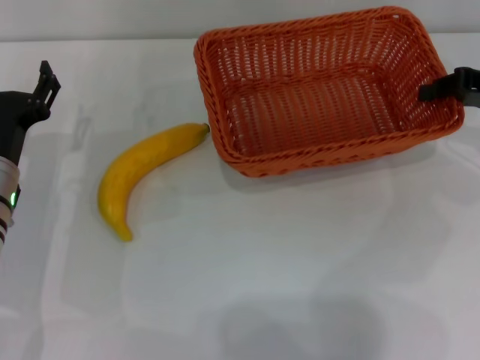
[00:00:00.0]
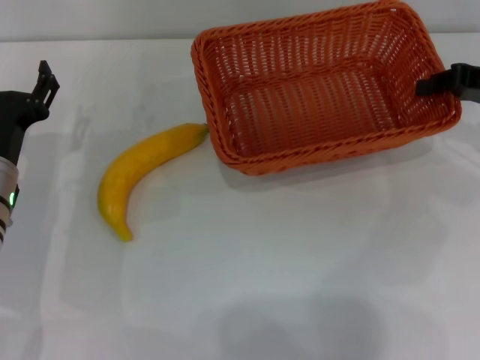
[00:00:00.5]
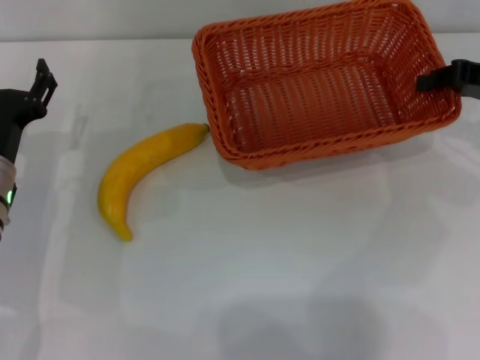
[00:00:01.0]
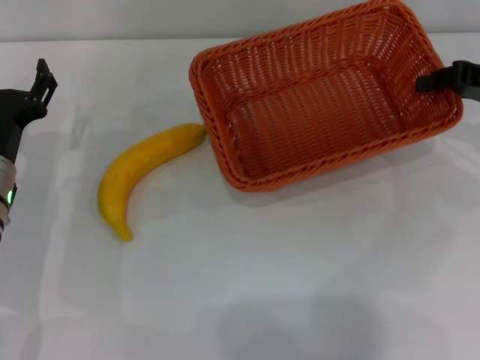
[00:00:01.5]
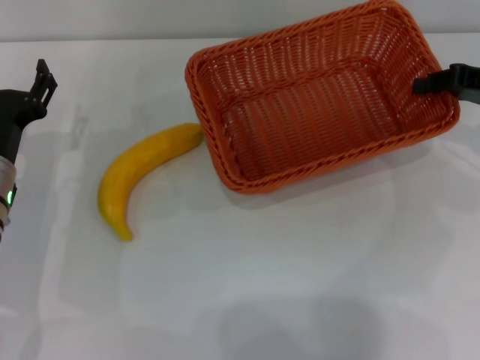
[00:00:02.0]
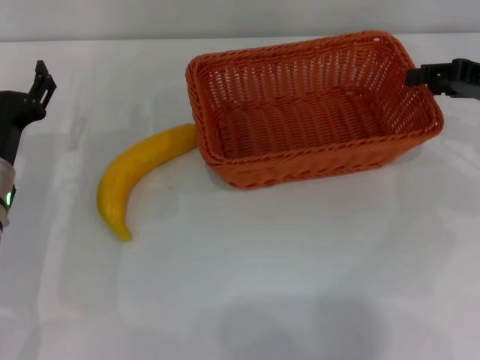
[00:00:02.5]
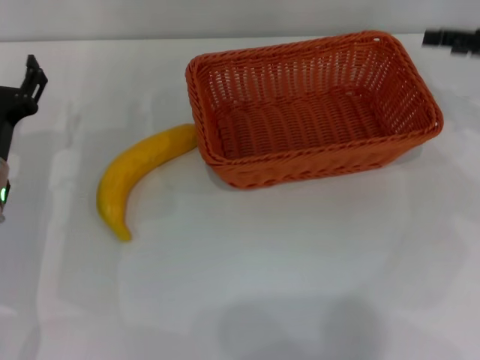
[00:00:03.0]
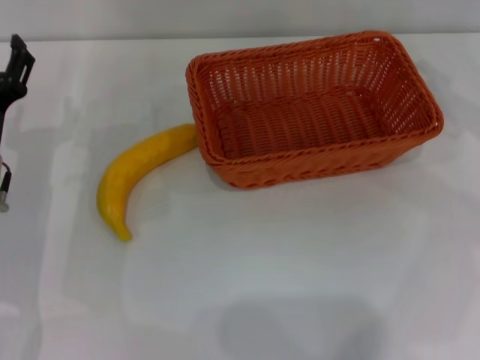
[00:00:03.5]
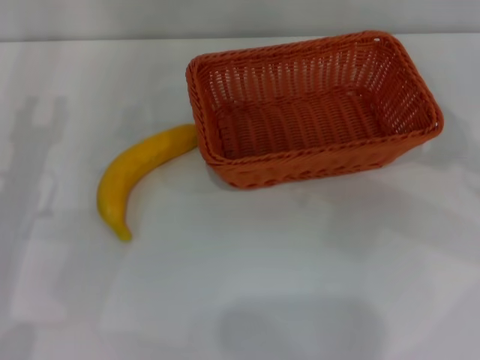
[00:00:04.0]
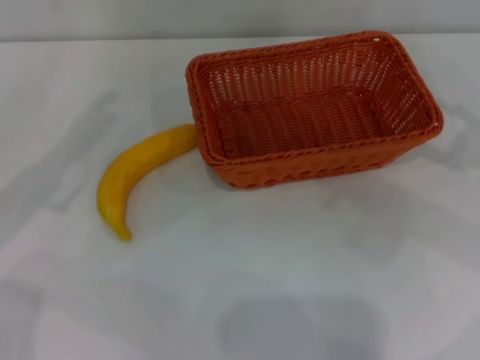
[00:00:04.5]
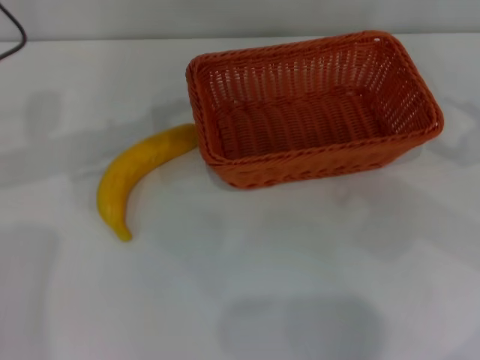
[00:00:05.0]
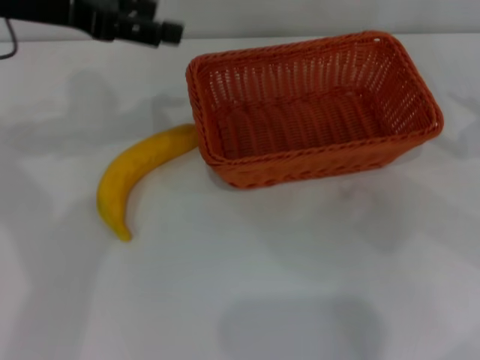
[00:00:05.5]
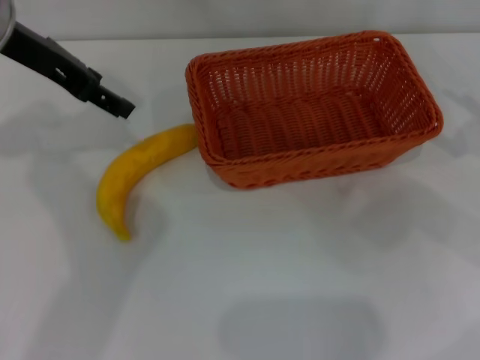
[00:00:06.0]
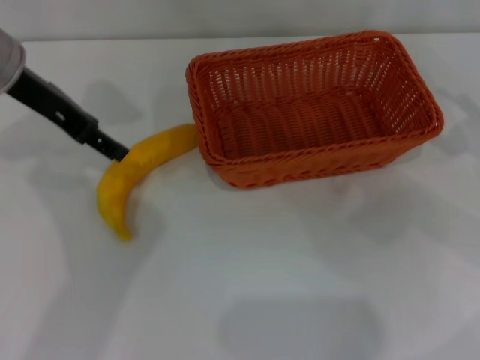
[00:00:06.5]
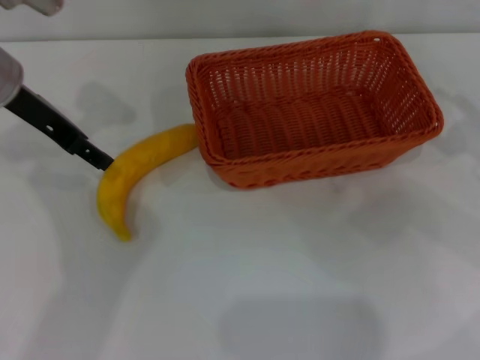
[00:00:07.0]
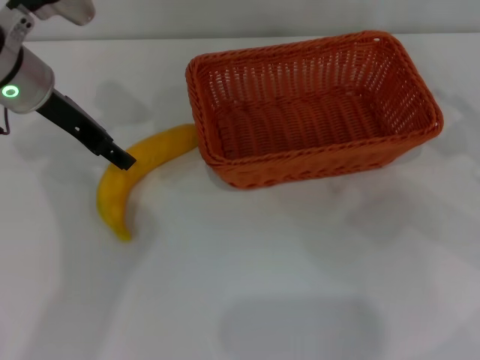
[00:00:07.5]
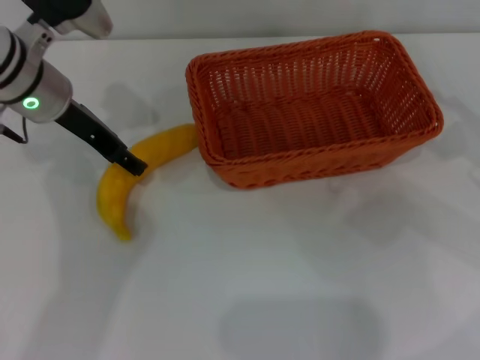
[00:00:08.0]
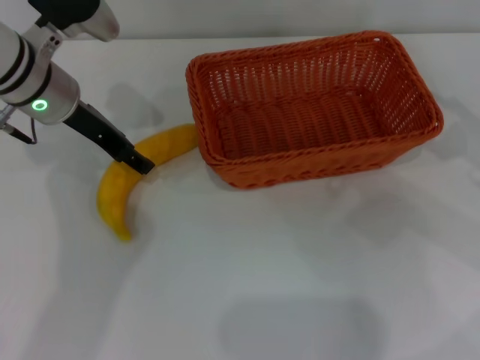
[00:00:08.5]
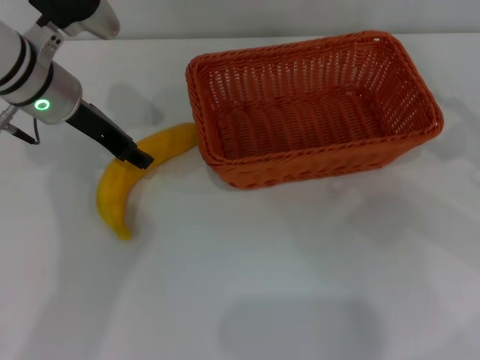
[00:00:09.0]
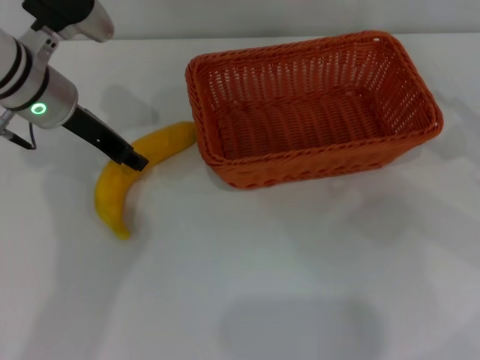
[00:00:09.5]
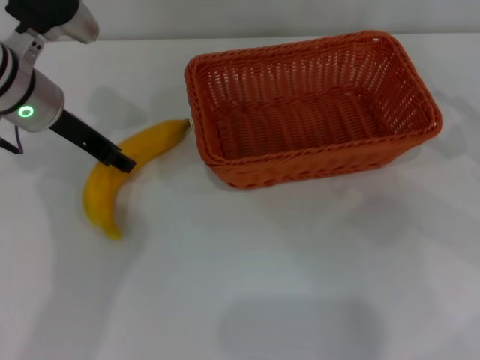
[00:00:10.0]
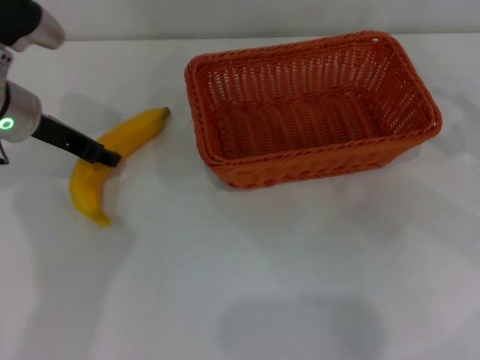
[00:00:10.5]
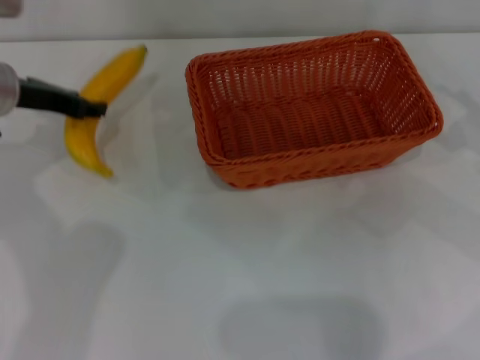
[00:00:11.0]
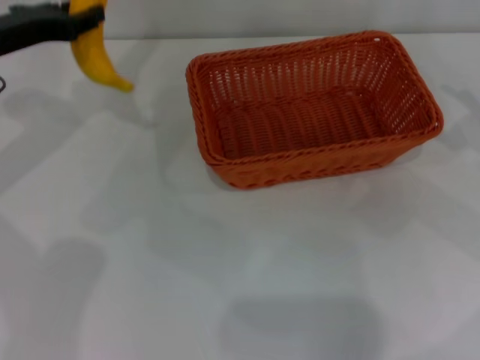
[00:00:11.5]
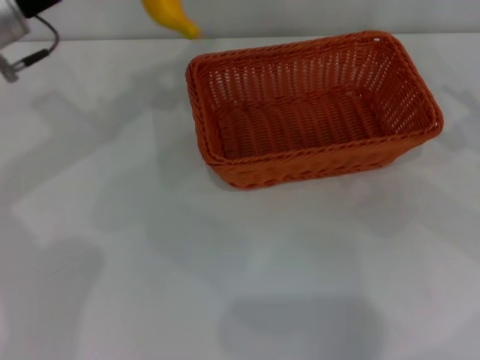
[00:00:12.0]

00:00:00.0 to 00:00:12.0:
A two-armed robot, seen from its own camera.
Step, 00:00:00.0 to 00:00:02.5: Place the light basket in the center of view with the right gripper.
Step, 00:00:03.0 to 00:00:11.0: Pick up the banana with the left gripper.
00:00:00.0 to 00:00:02.0: Both grippers stay about where they are.
00:00:02.0 to 00:00:04.0: The left gripper ends up about 5 cm from where it was; the right gripper goes some 10 cm backward and upward, and opens its fingers.
00:00:04.0 to 00:00:06.0: The left gripper heads upward and forward, covering roughly 20 cm.
00:00:06.0 to 00:00:08.0: The left gripper moves downward, approximately 10 cm.
00:00:08.0 to 00:00:10.0: The left gripper closes.
00:00:10.0 to 00:00:12.0: The left gripper moves approximately 5 cm.

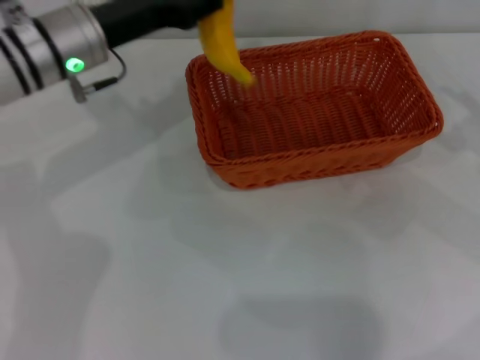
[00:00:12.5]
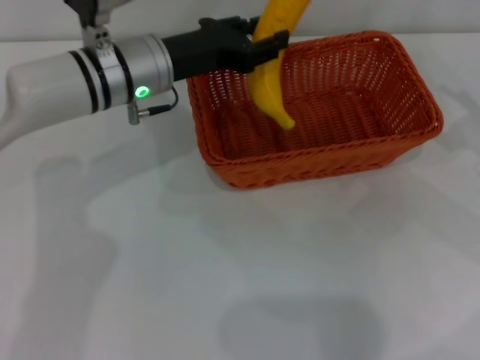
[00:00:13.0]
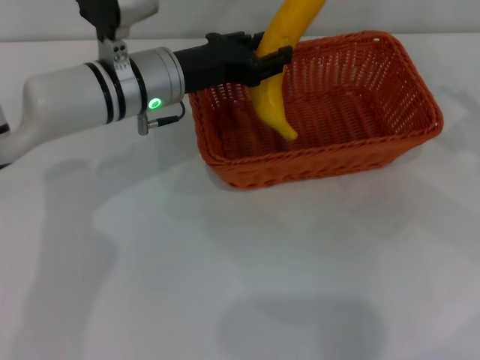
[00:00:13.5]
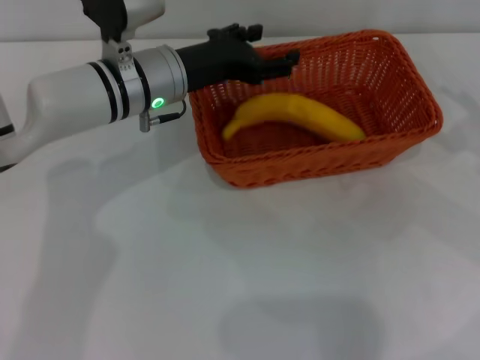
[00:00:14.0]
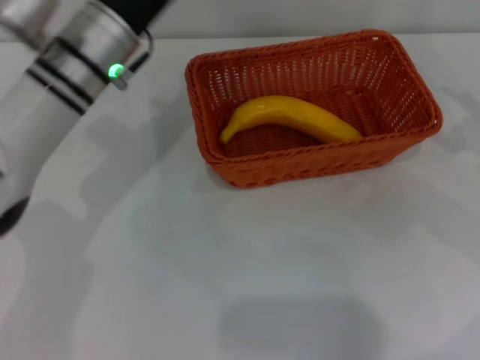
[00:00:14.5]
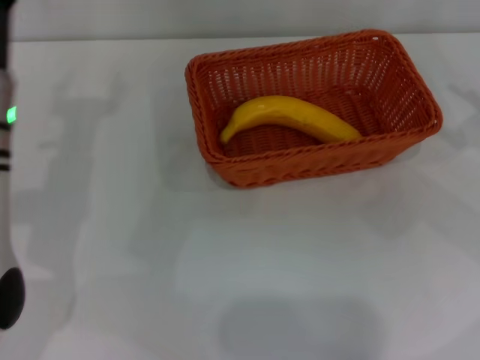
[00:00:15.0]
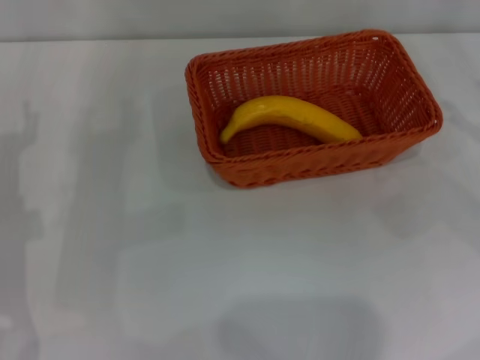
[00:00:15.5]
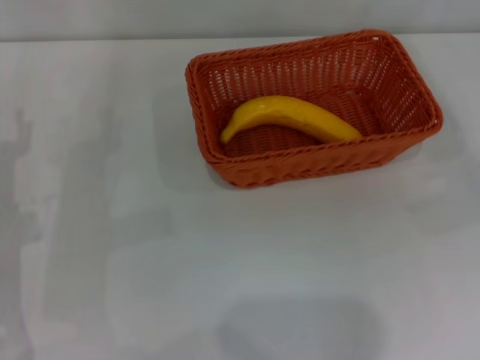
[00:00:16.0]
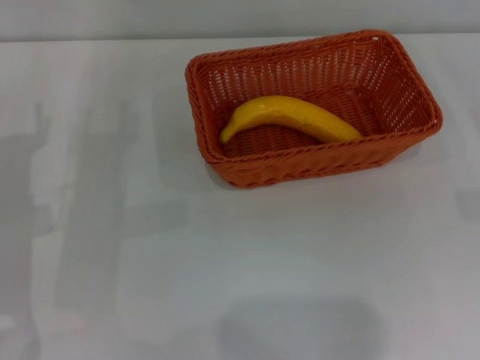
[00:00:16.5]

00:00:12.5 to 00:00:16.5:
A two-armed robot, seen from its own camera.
Step, 00:00:12.5 to 00:00:14.0: Place the banana into the light basket with the left gripper.
00:00:12.5 to 00:00:14.5: The left gripper opens up.
00:00:14.5 to 00:00:16.5: The left gripper shifts roughly 20 cm to the left, backward and downward.

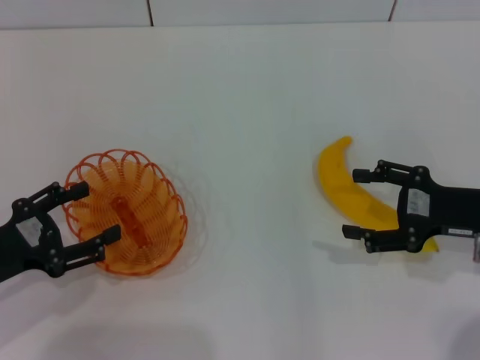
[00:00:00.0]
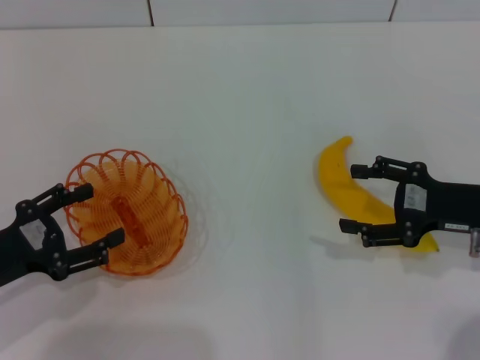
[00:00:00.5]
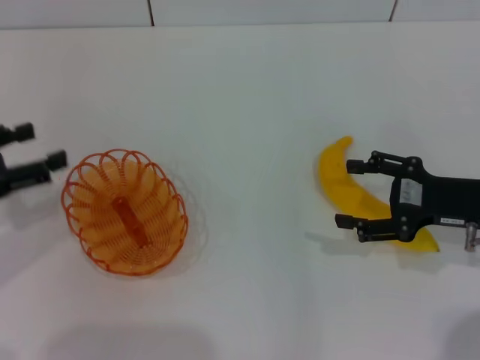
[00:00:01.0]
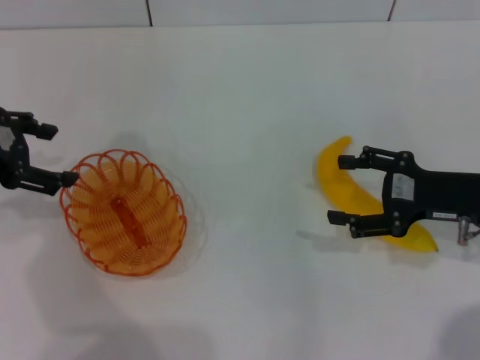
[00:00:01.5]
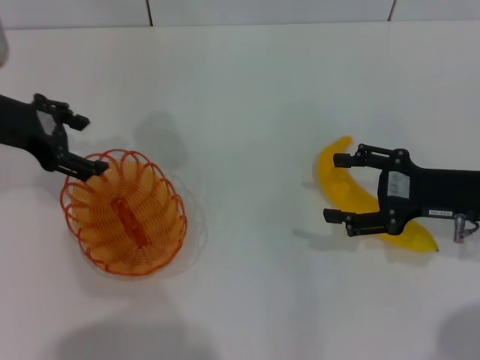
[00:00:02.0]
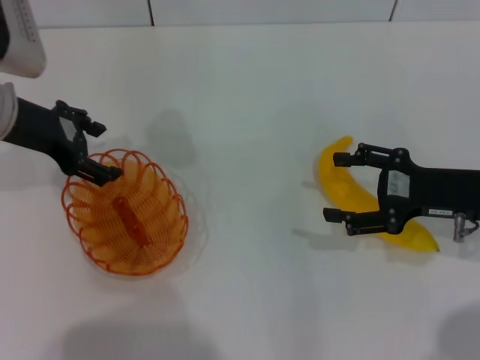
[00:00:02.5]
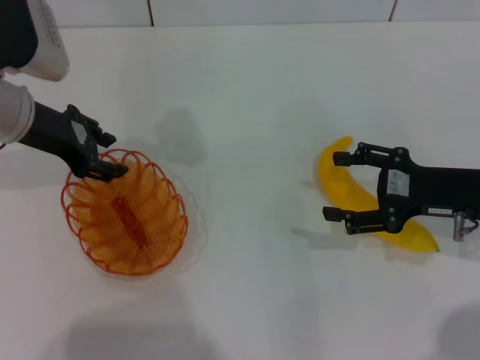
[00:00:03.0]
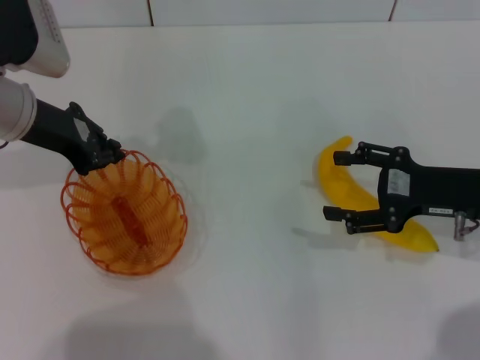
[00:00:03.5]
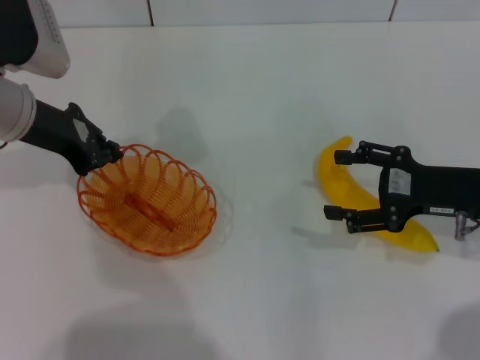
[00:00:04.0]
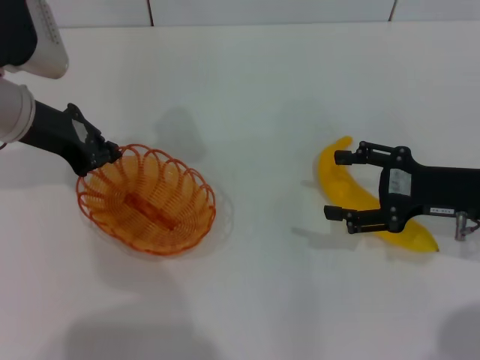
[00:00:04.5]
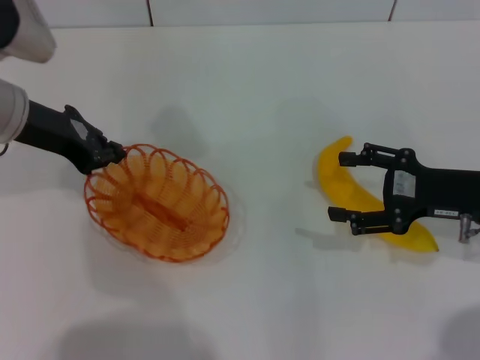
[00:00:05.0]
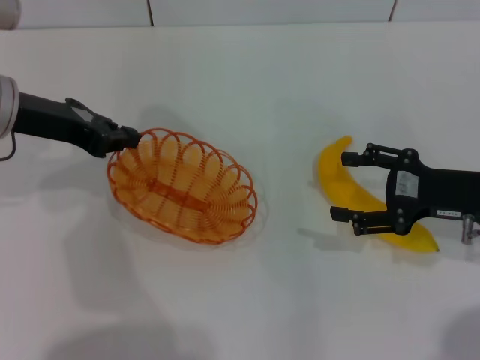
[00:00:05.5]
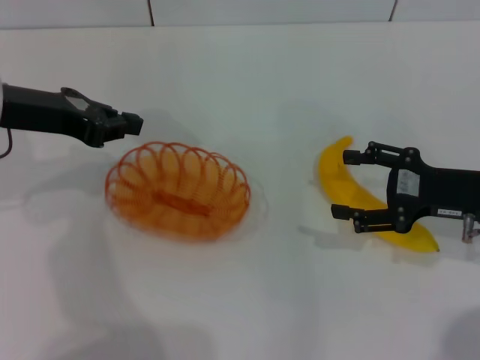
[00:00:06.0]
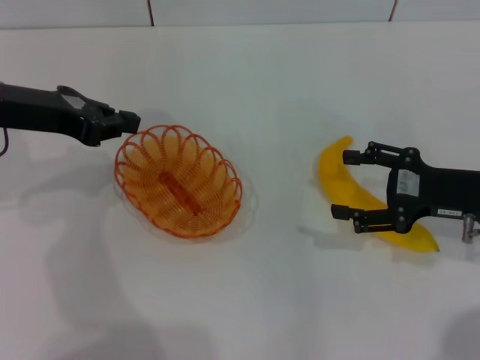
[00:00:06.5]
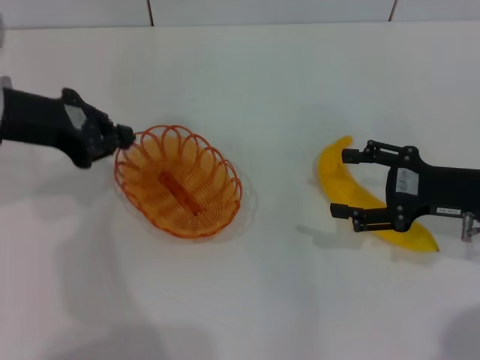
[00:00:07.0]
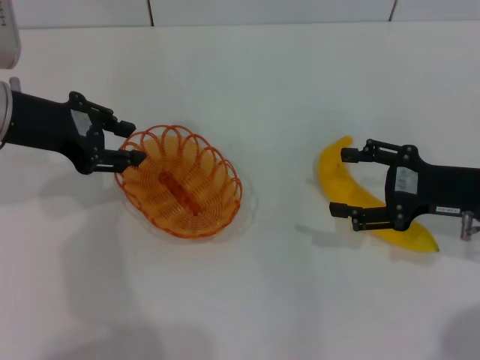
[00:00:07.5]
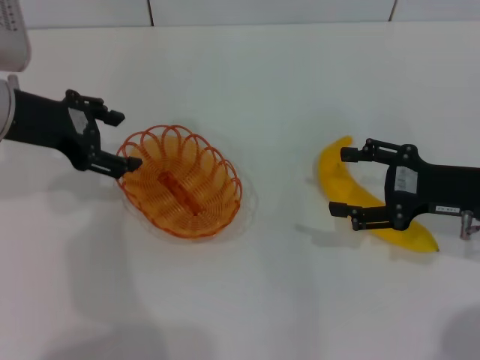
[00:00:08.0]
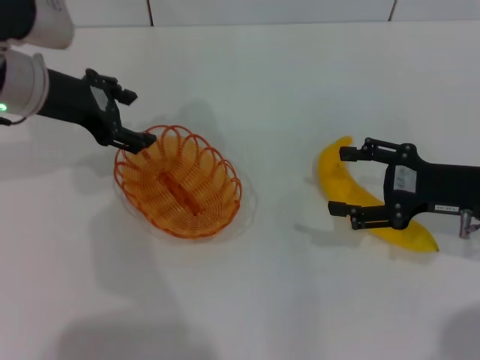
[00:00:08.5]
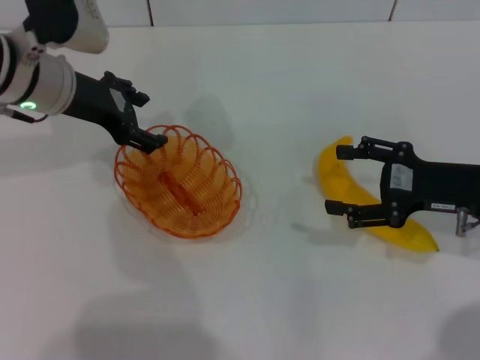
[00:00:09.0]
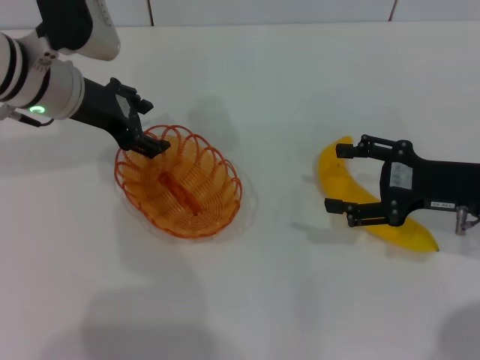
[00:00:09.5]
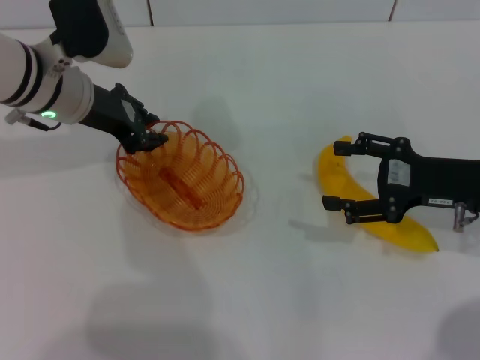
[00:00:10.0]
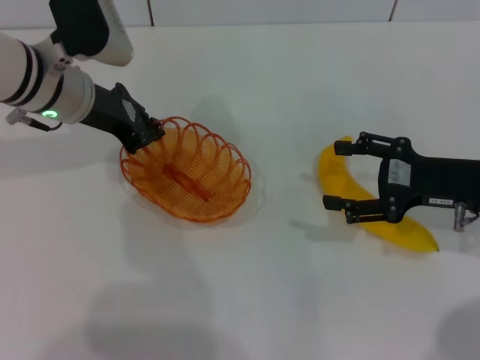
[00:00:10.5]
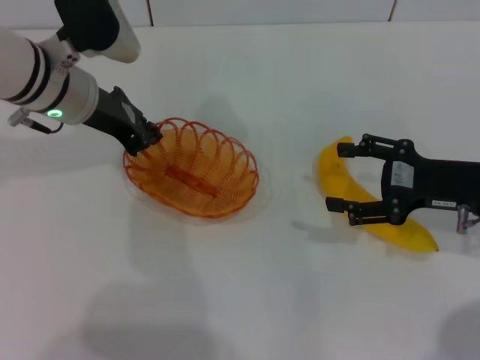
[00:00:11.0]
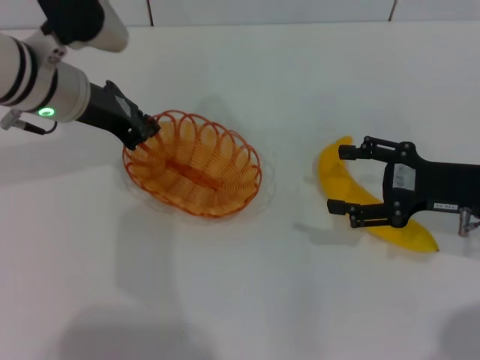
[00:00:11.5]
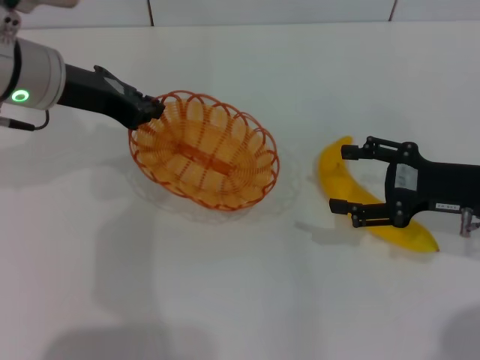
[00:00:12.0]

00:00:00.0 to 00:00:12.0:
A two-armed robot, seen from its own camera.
Step, 00:00:00.0 to 00:00:11.5: Pick up the basket with the left gripper.
00:00:00.0 to 00:00:02.0: The left gripper goes about 20 cm forward and upward.
00:00:02.0 to 00:00:04.0: The left gripper closes up.
00:00:06.0 to 00:00:08.0: The left gripper opens up.
00:00:08.0 to 00:00:10.0: The left gripper travels to the right and forward by approximately 10 cm.
00:00:10.0 to 00:00:12.0: The left gripper ends up approximately 5 cm from where it was, and closes up.
